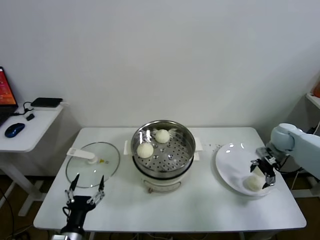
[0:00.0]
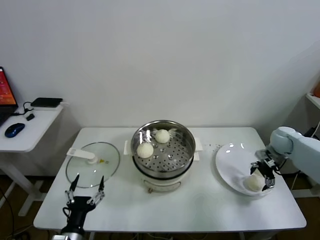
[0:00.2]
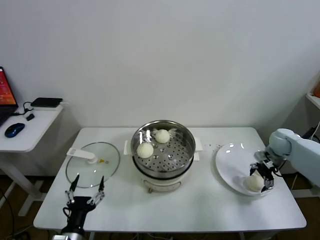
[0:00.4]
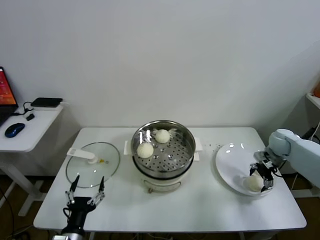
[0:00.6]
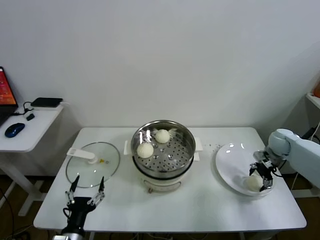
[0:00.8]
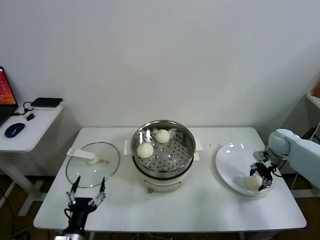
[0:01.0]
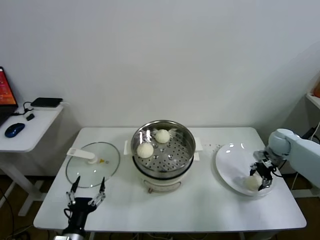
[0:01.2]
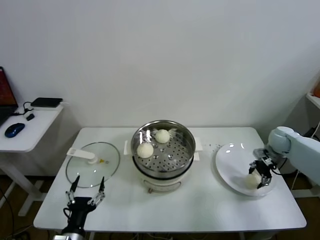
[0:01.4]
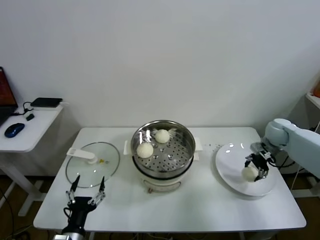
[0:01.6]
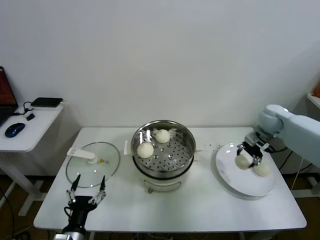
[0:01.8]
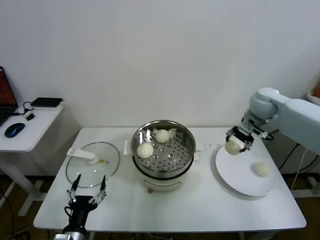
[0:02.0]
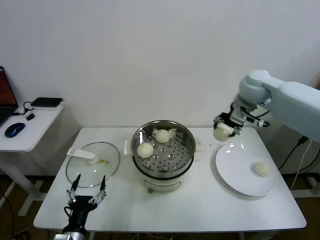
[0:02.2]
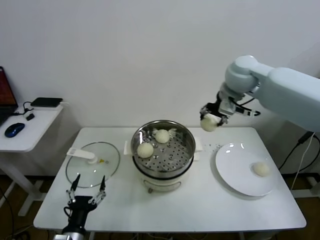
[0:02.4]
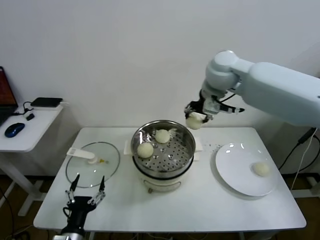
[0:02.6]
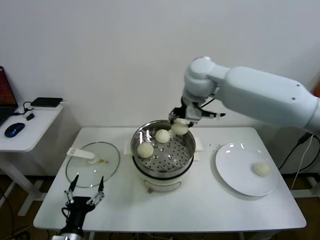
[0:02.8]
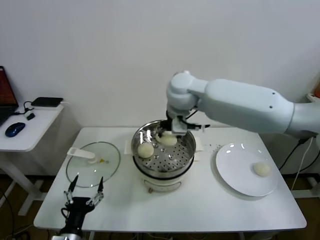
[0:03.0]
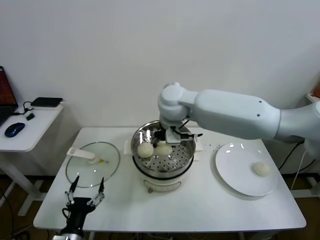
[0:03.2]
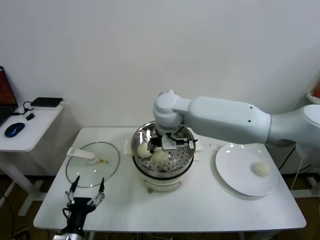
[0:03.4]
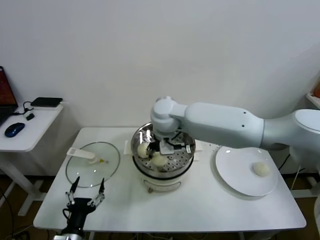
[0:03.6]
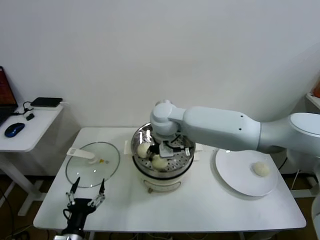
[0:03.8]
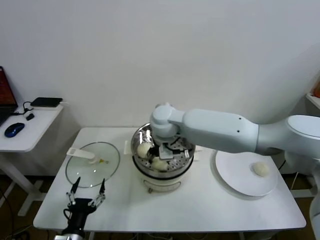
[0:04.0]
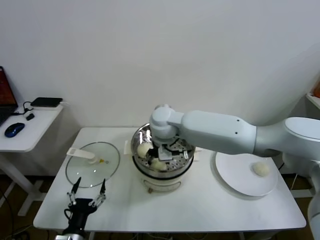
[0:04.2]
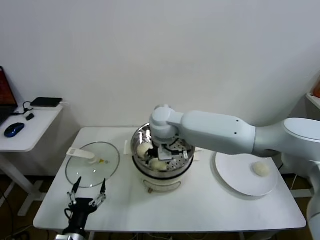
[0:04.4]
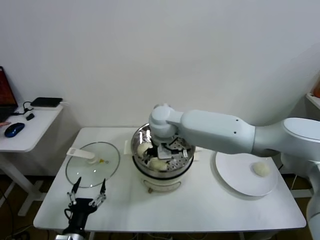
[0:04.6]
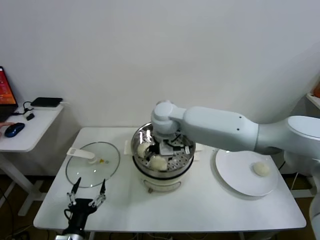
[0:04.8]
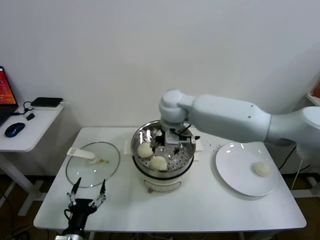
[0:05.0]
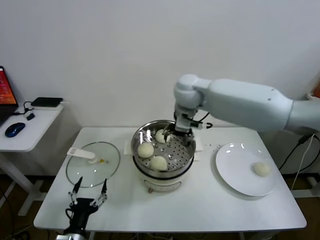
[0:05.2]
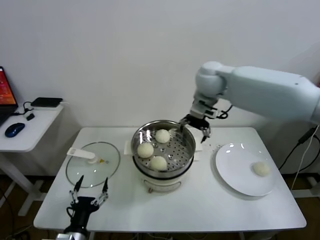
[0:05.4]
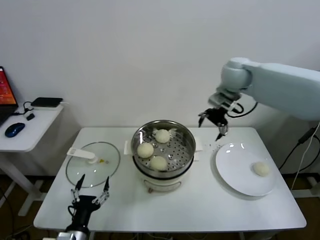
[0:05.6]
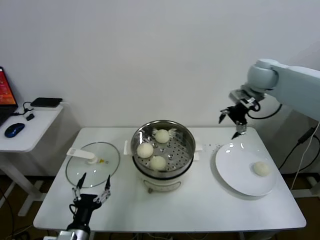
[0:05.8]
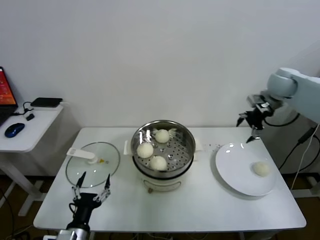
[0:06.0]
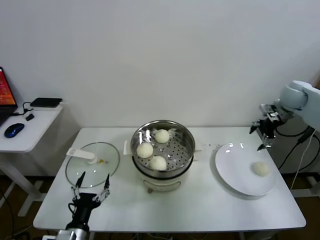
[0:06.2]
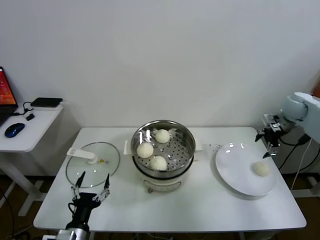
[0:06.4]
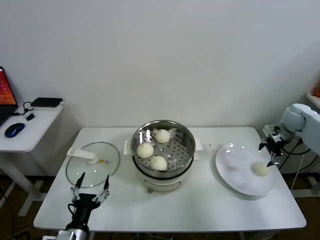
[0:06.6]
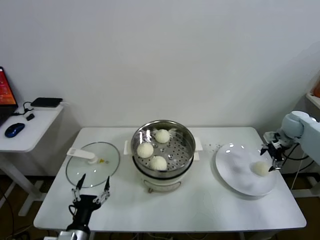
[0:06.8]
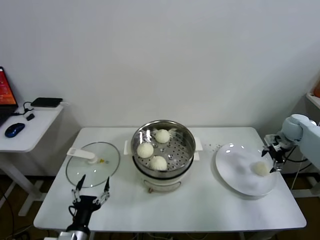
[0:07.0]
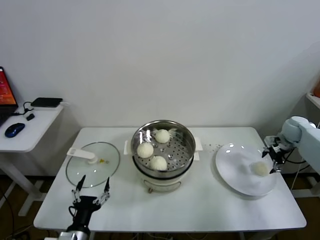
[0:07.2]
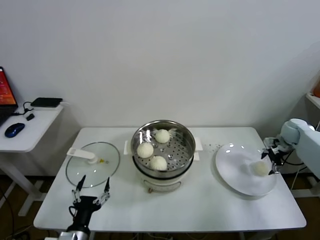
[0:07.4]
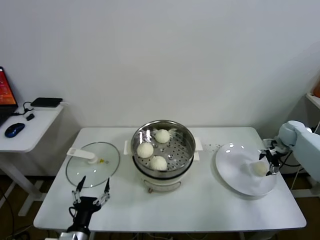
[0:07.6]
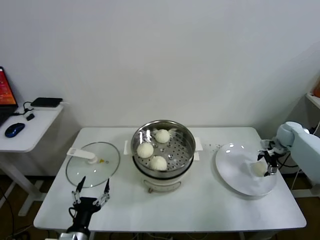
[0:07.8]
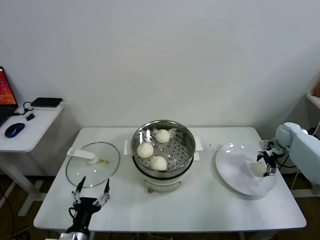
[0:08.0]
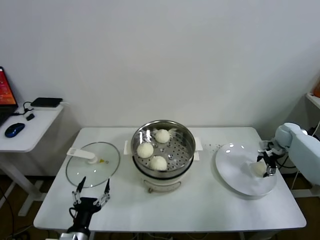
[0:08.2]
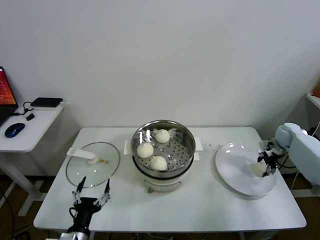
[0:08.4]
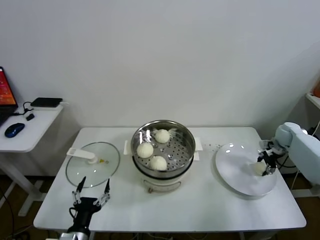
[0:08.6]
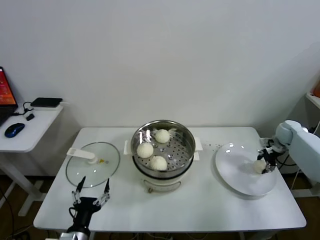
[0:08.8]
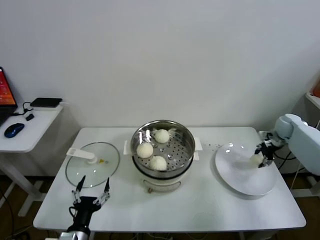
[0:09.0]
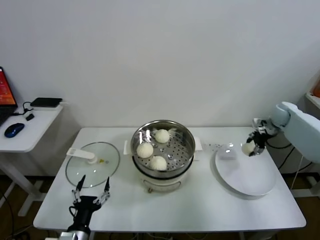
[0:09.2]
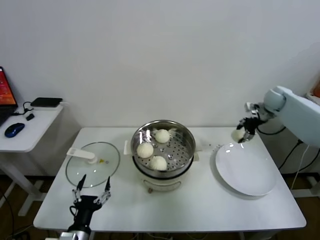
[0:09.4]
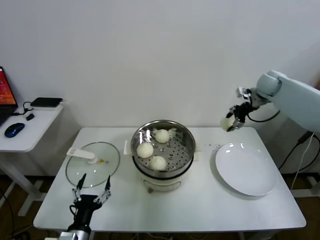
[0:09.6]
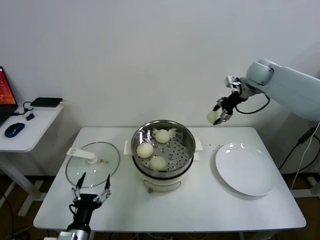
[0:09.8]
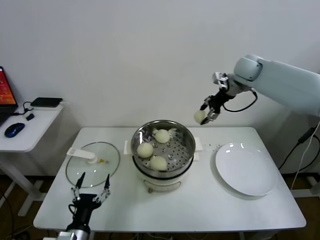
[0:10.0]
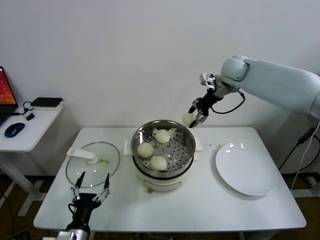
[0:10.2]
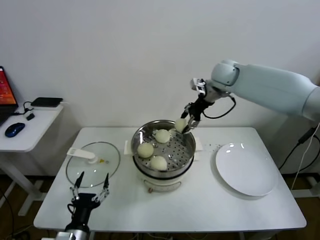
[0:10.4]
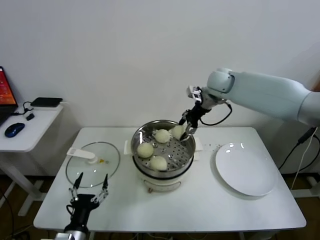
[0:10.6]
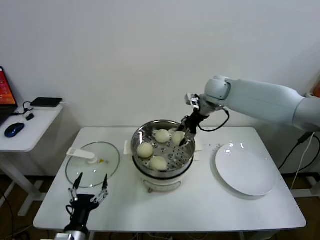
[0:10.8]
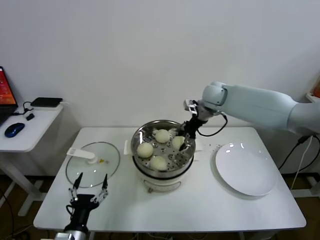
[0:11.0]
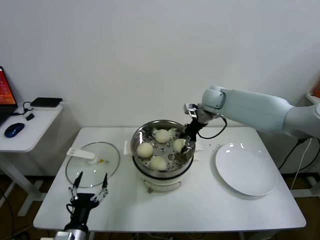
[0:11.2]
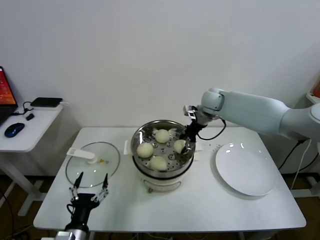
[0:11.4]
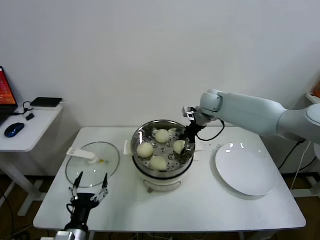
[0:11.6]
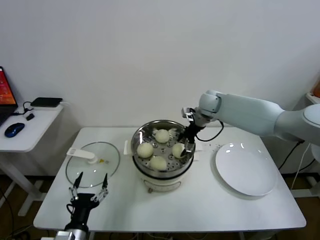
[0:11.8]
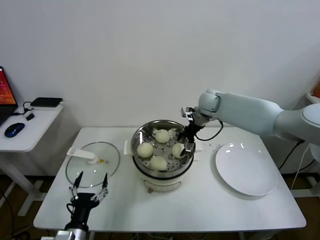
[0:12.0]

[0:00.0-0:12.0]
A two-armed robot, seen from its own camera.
Task of the whole recording: take steamed baozi put them in steamer.
Step, 0:01.6 to 0:04.6: Place the baozi on the steamer with right gripper.
Step, 0:04.8 to 0:08.4: Grasp the baozi in the plate with right gripper.
0:00.0 to 0:01.6: The right gripper closes its fingers.
0:01.6 to 0:03.0: The right gripper heads to the left and upward, covering some 40 cm.
0:03.0 to 0:04.4: The right gripper goes approximately 10 cm downward and to the left, and opens.
0:04.4 to 0:06.0: The right gripper travels to the right by about 40 cm, and opens.
0:06.0 to 0:07.6: The right gripper moves downward and to the right, some 25 cm.
0:07.6 to 0:09.0: The right gripper closes its fingers.
0:09.0 to 0:10.4: The right gripper goes roughly 35 cm to the left and upward.
0:10.4 to 0:12.0: The right gripper goes approximately 10 cm downward, and opens up.

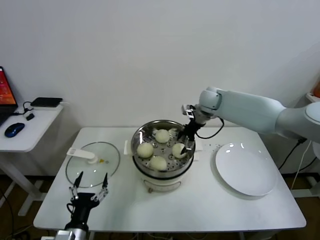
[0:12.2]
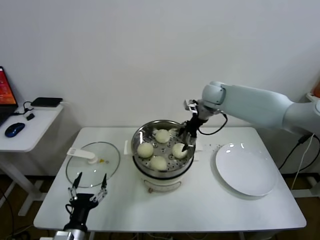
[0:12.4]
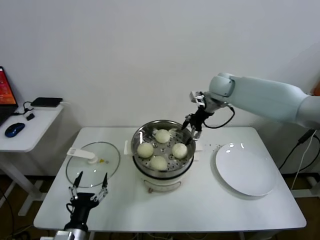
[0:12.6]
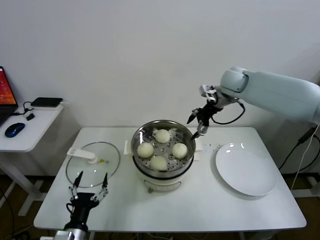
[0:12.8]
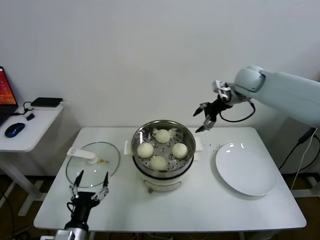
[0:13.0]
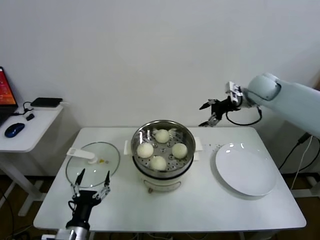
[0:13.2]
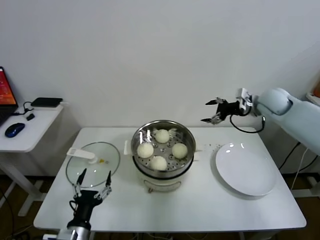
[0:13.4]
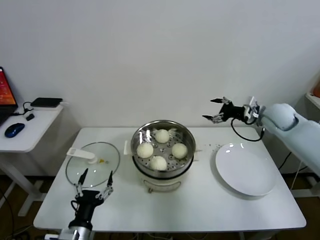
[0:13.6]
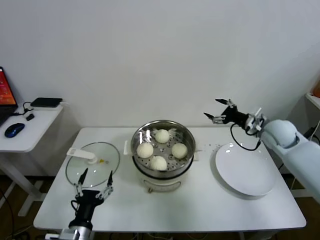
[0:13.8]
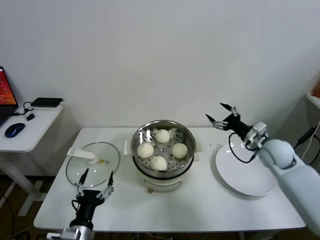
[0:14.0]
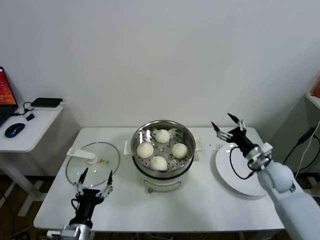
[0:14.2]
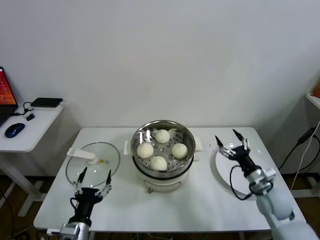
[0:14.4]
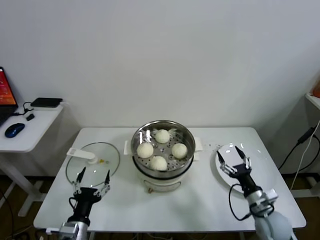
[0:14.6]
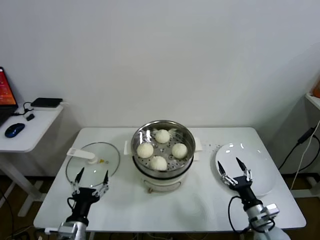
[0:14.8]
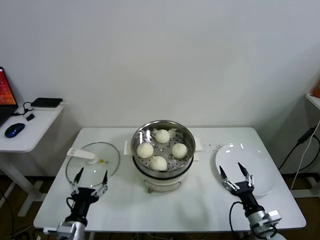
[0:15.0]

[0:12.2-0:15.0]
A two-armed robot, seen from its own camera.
Task of the whole recording: take steamed baozi put them in steamer.
0:12.2 to 0:13.6: The right gripper goes roughly 20 cm to the right and backward.
0:13.6 to 0:15.0: The right gripper travels backward and downward by approximately 40 cm.
